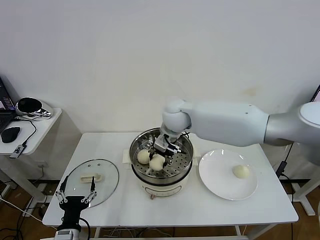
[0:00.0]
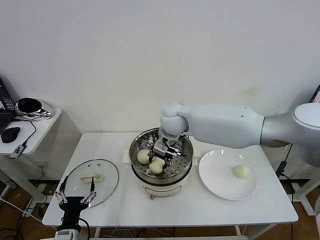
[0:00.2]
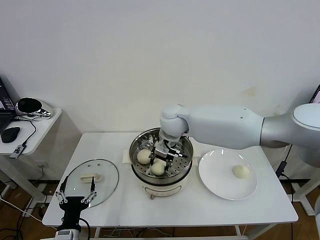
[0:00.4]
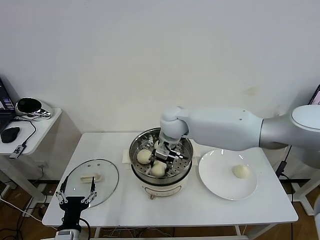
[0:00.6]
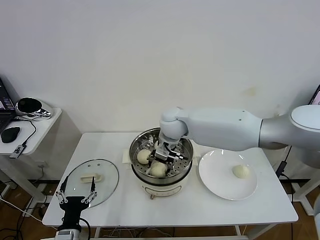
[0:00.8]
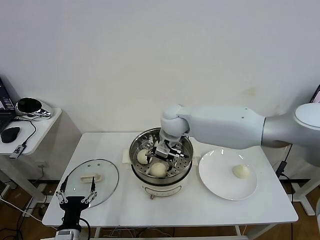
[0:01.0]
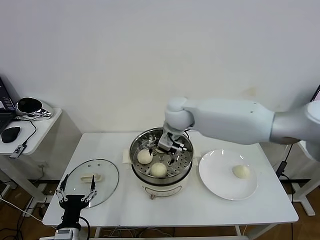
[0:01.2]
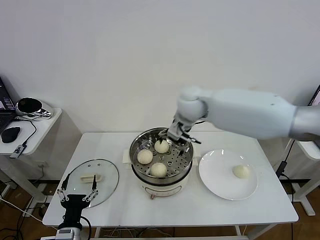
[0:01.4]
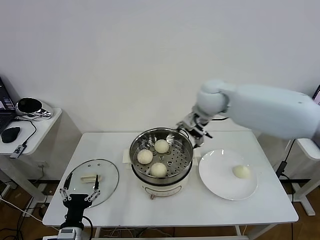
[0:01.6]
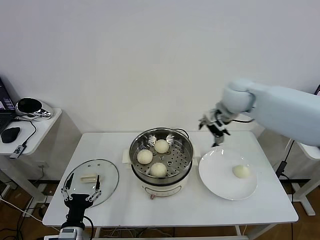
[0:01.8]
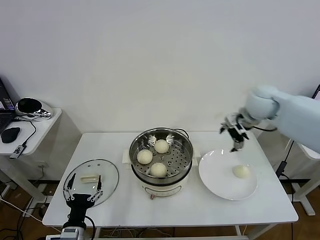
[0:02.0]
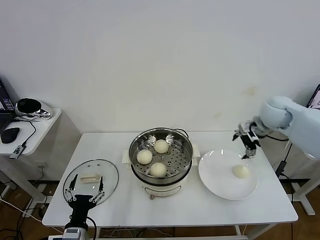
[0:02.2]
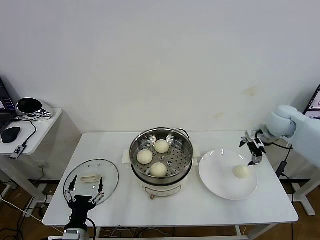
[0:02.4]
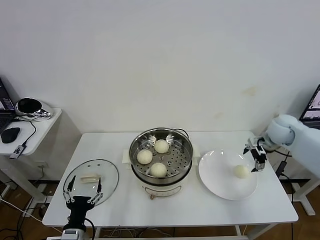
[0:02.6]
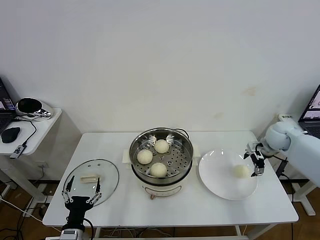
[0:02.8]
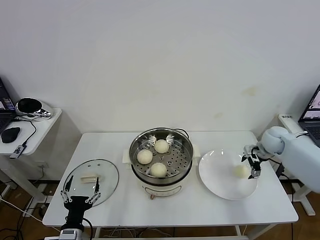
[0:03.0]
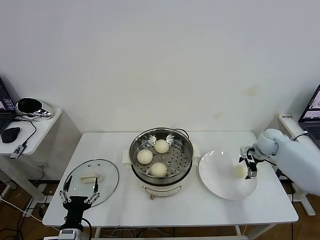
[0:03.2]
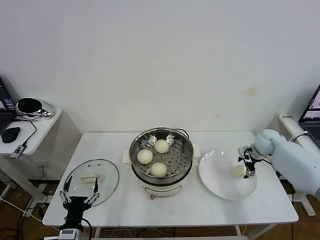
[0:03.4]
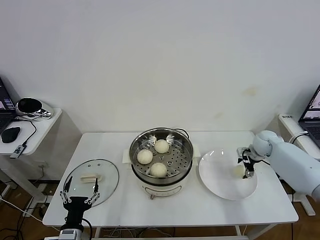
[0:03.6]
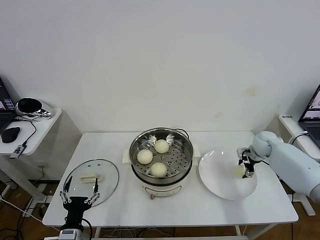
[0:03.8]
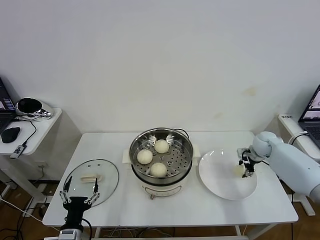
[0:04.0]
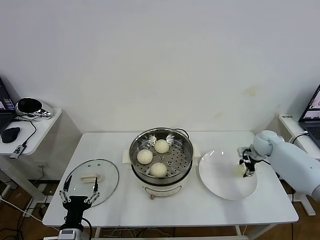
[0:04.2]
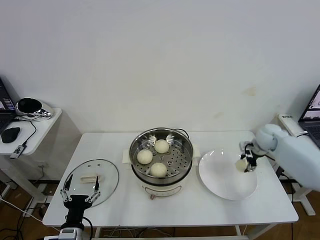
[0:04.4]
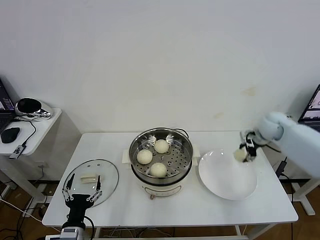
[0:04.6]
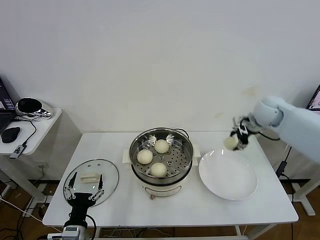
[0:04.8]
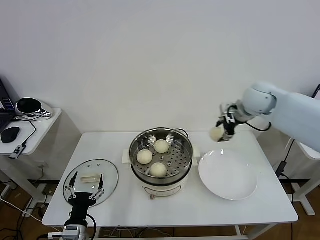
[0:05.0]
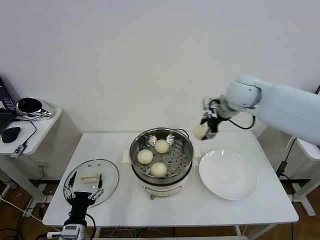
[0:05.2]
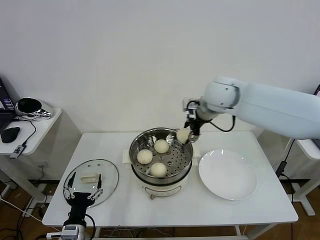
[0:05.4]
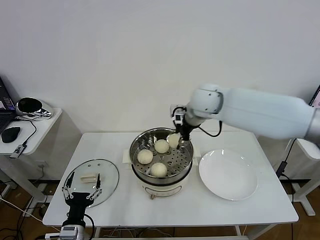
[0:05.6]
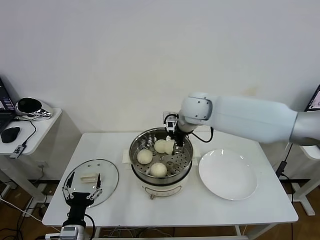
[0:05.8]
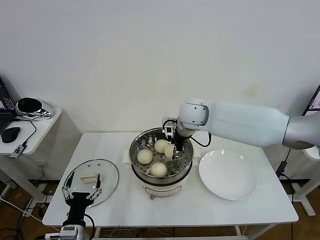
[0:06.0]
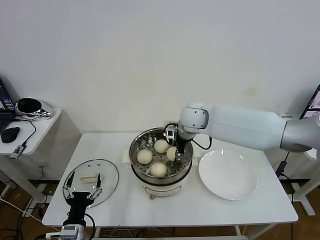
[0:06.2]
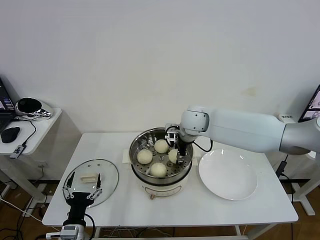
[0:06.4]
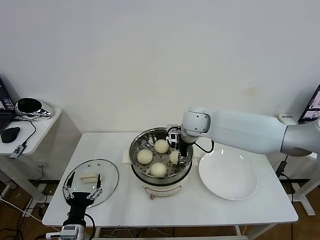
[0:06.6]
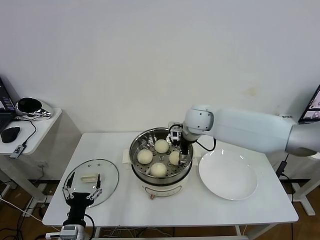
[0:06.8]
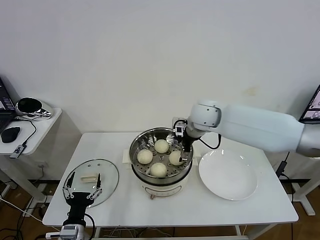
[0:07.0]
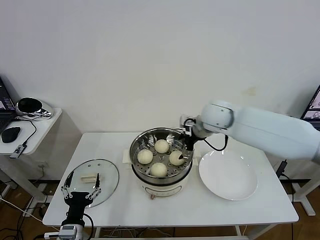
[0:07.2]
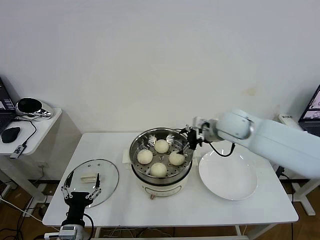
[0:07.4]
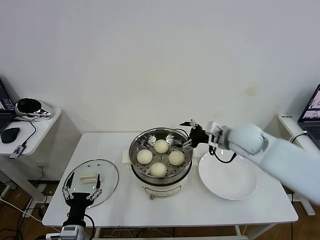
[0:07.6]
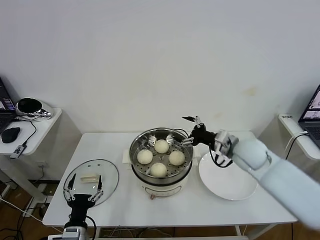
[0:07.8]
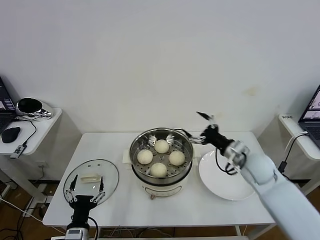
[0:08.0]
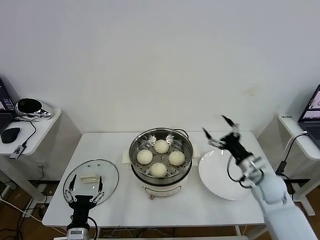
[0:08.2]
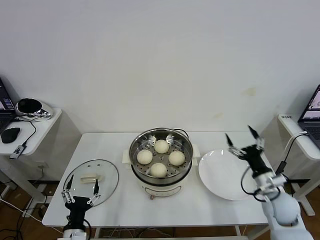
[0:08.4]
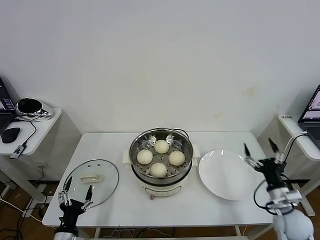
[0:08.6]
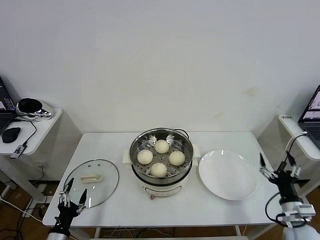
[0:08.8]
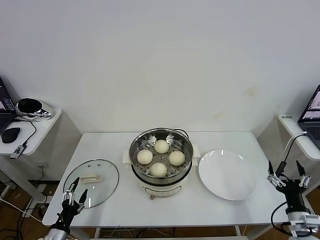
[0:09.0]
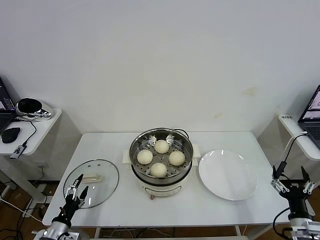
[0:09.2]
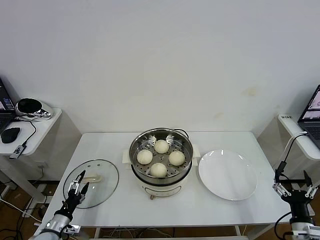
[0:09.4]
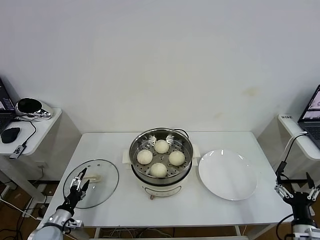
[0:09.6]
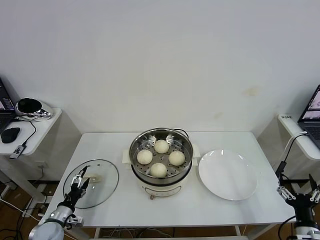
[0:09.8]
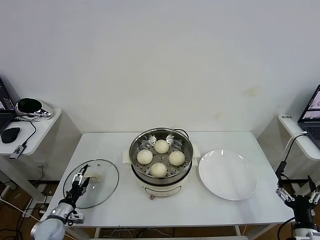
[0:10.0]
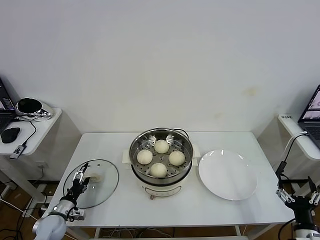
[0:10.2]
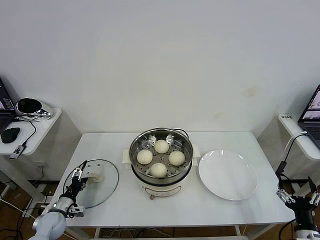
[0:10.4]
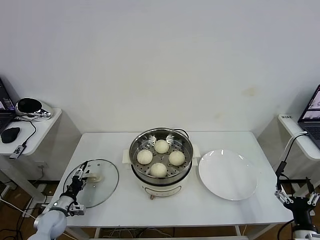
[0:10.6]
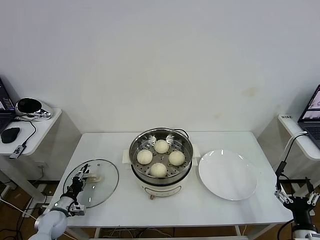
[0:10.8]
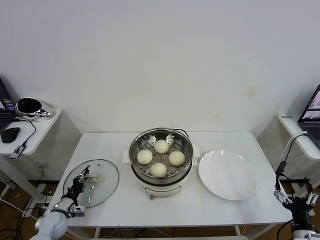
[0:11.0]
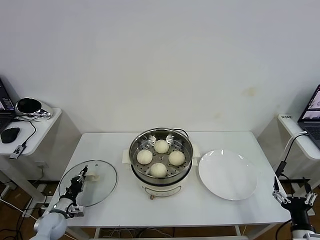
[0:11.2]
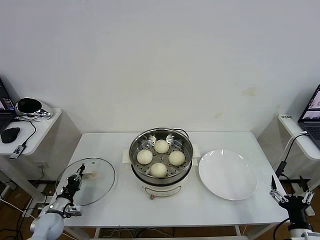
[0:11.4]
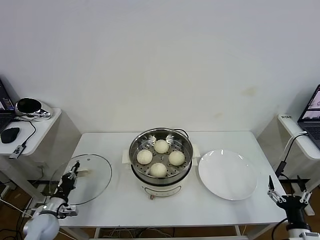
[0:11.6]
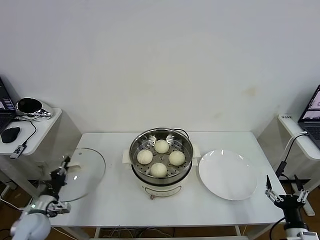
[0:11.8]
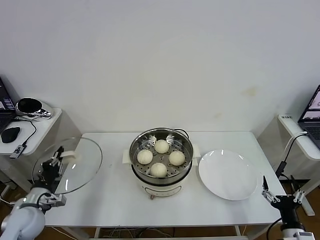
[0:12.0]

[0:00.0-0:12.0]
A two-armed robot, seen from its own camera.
Task of the whole recording: take steamed baozi put them in steamer then cover it.
Step, 0:01.2 to 0:03.8: Grasp the baozi in the plate with right gripper.
Step, 0:04.2 to 0:07.0: Place the baozi on the steamer with right gripper.
Step, 0:07.2 to 0:11.2: Grasp the pot lid with left gripper.
0:00.0 to 0:01.6: The right gripper goes approximately 15 cm to the right and upward, and opens its fingers.
0:01.6 to 0:03.0: The right gripper is displaced to the right and downward by roughly 30 cm.
0:03.0 to 0:04.4: The right gripper closes its fingers.
0:04.4 to 0:06.0: The right gripper travels to the left by about 30 cm.
0:06.0 to 0:07.6: The right gripper shifts some 15 cm to the right and backward, and opens.
0:07.6 to 0:09.0: The right gripper is displaced backward, downward and to the right by about 35 cm; the left gripper goes some 10 cm to the left and downward.
0:09.0 to 0:10.4: The left gripper goes roughly 15 cm forward. The right gripper travels backward by roughly 5 cm.
0:10.4 to 0:12.0: The left gripper moves upward, roughly 10 cm, and closes its fingers.

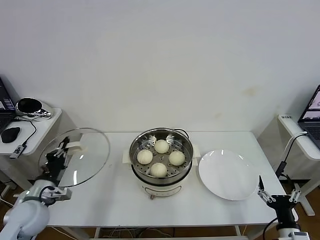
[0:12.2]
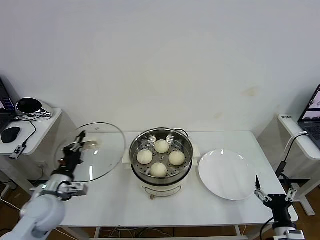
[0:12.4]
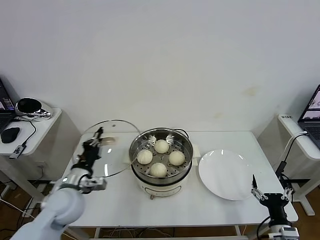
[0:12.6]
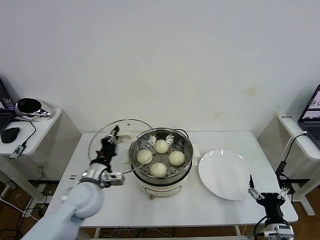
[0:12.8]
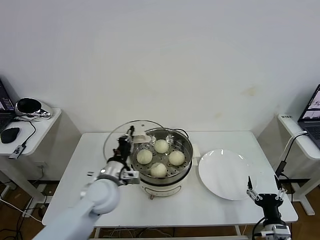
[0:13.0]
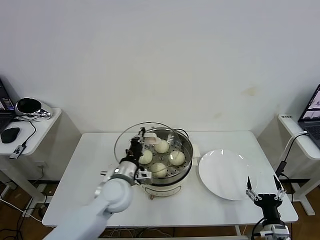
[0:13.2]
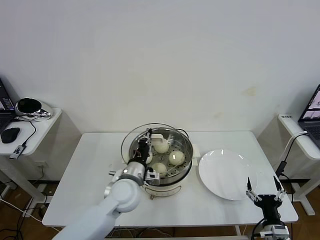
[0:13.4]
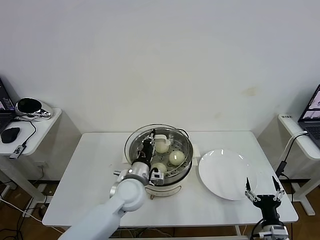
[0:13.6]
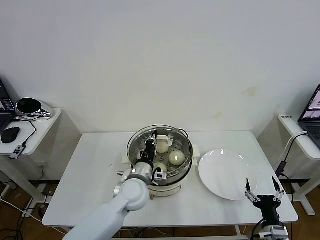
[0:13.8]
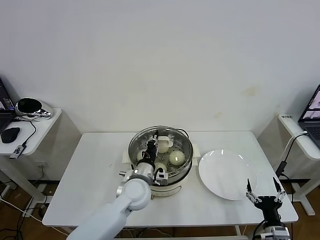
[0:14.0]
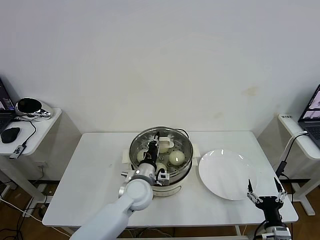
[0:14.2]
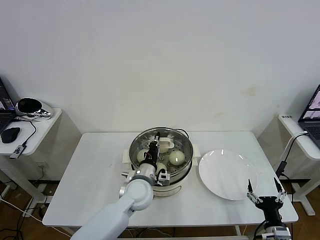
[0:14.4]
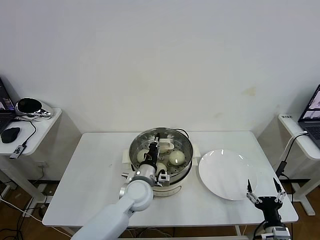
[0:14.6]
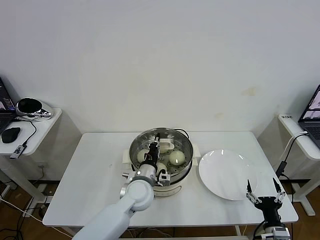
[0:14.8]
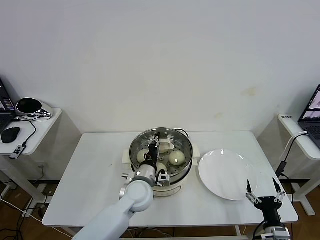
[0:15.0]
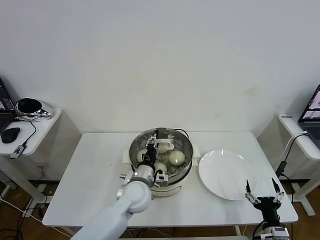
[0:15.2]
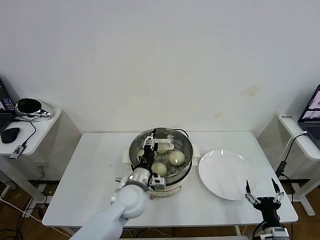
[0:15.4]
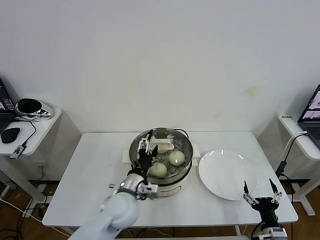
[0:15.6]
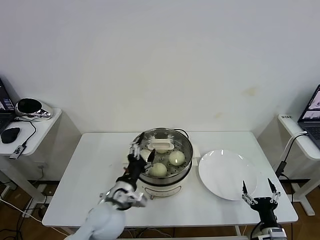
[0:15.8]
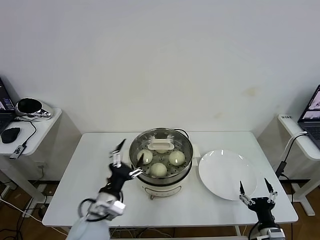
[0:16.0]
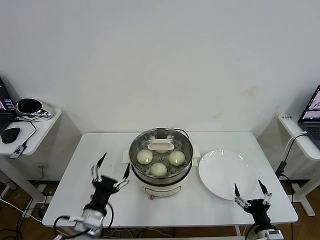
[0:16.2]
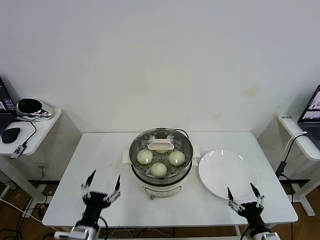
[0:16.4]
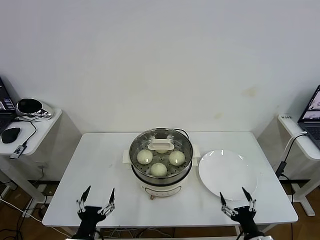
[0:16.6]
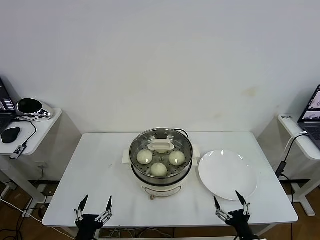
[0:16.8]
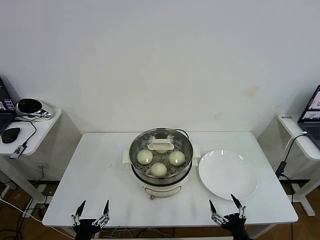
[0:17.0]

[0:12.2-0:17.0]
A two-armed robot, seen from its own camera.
Task of the whole recording: take steamed baozi put them in steamer then cover it.
Step, 0:12.2 to 0:15.8: Place the pot lid on the steamer with left gripper.
0:12.2 to 0:13.8: The left gripper goes about 30 cm to the right.
0:13.8 to 0:15.4: The left gripper opens up.
0:15.4 to 0:17.0: The left gripper is displaced backward and to the left by some 30 cm, and opens; the right gripper goes approximately 5 cm to the left.
